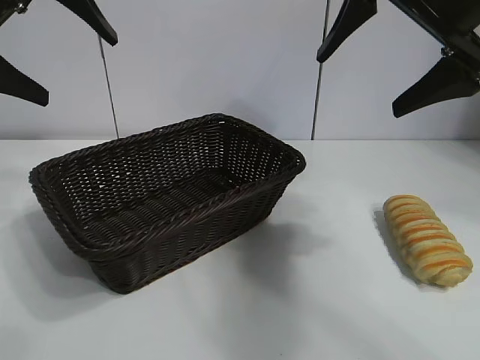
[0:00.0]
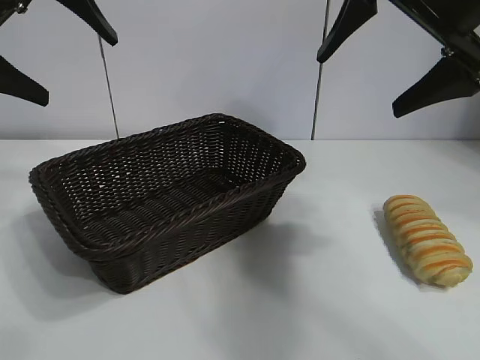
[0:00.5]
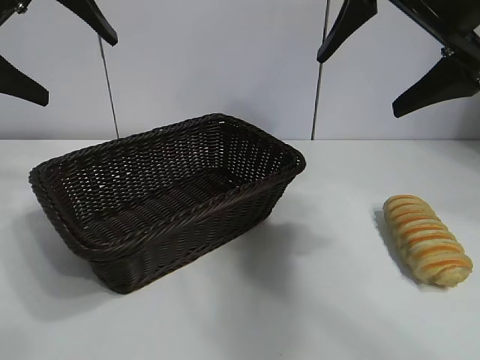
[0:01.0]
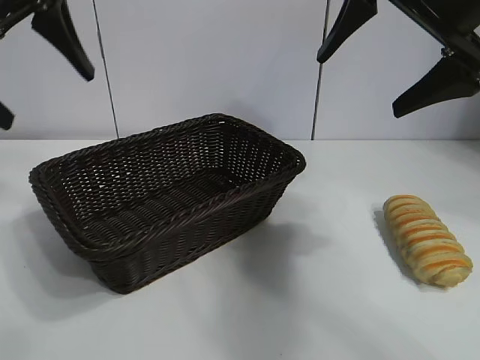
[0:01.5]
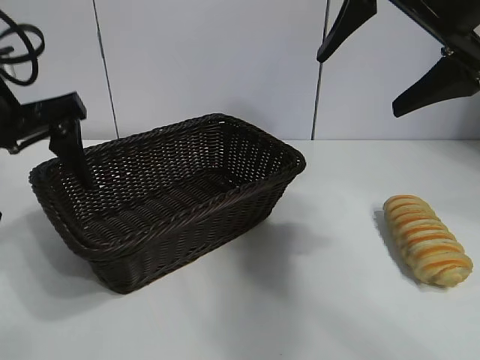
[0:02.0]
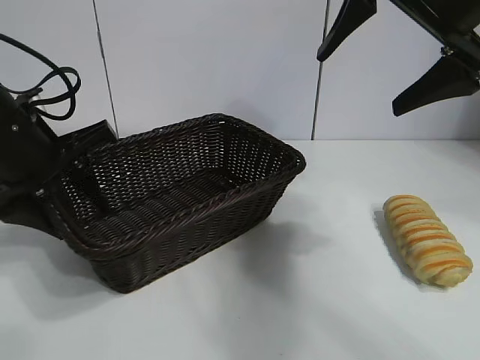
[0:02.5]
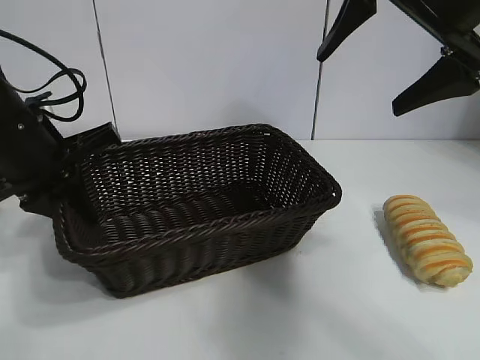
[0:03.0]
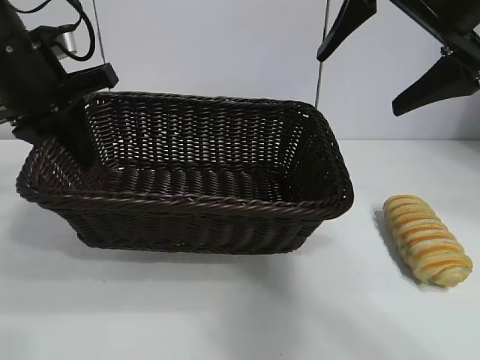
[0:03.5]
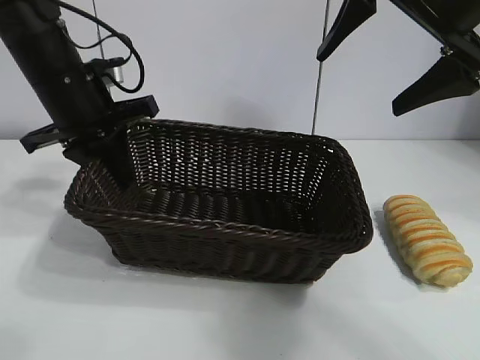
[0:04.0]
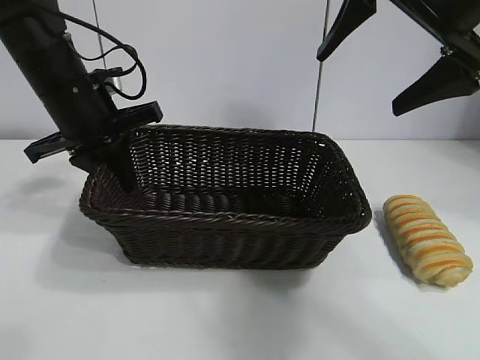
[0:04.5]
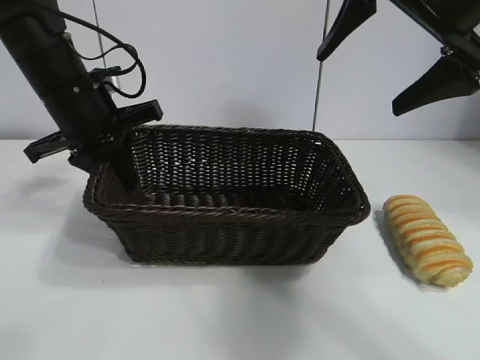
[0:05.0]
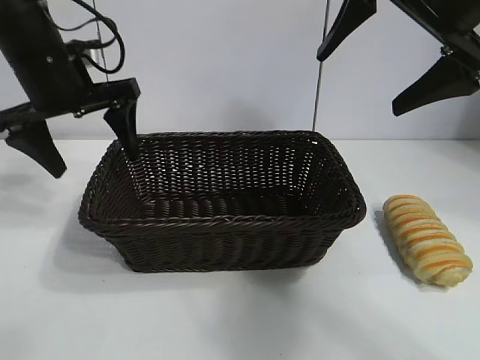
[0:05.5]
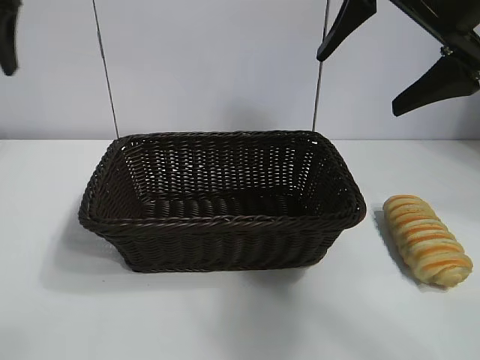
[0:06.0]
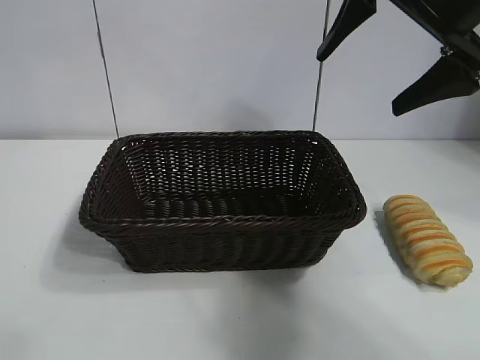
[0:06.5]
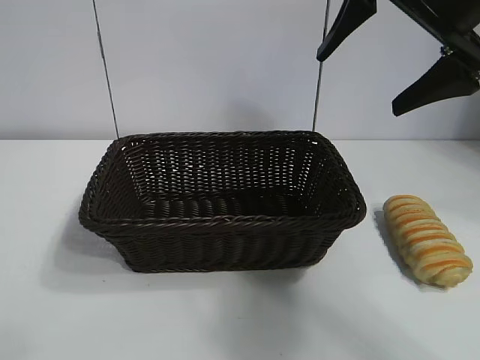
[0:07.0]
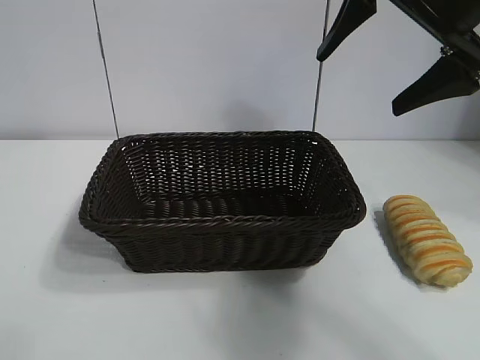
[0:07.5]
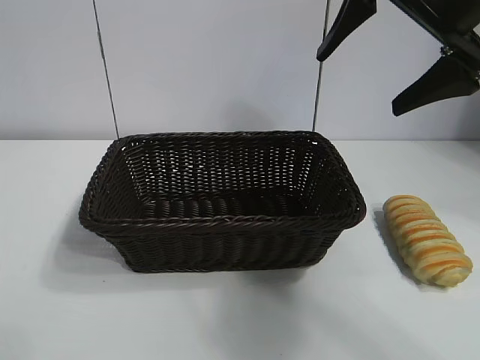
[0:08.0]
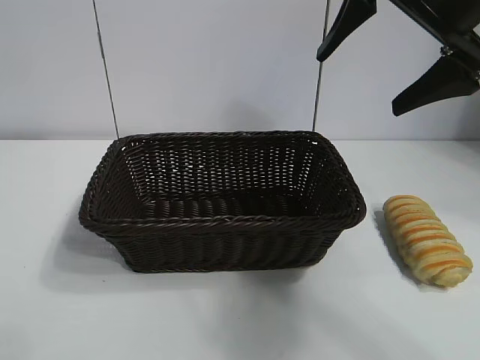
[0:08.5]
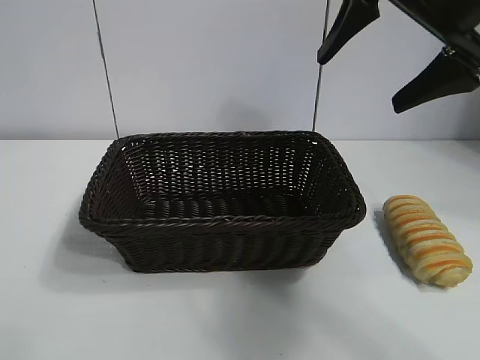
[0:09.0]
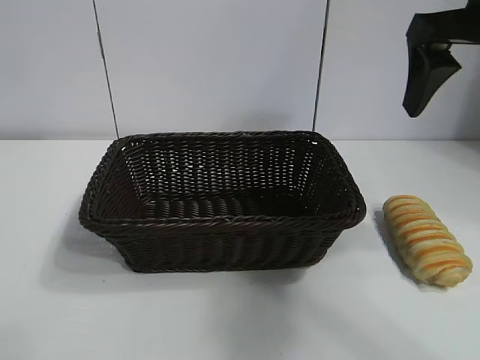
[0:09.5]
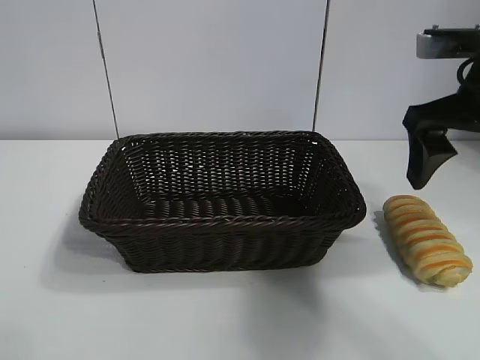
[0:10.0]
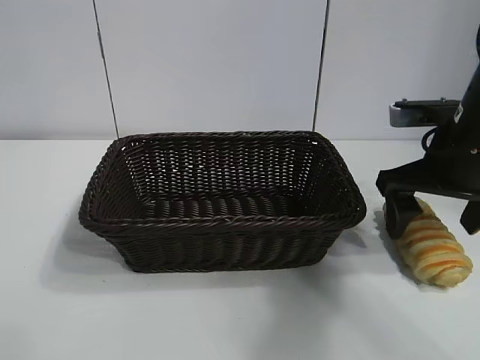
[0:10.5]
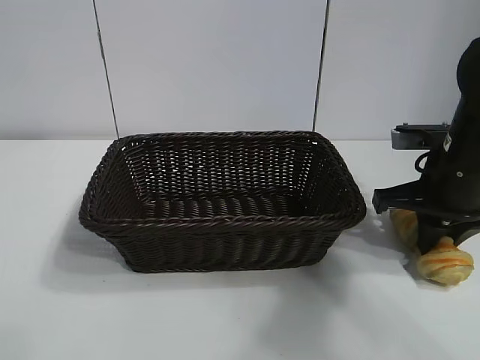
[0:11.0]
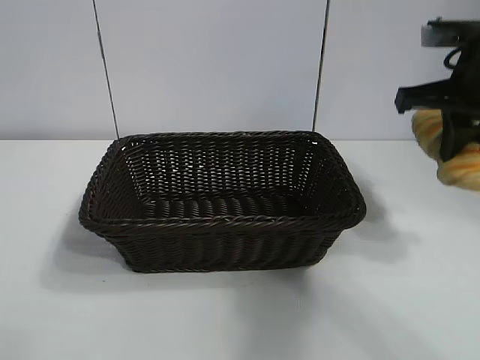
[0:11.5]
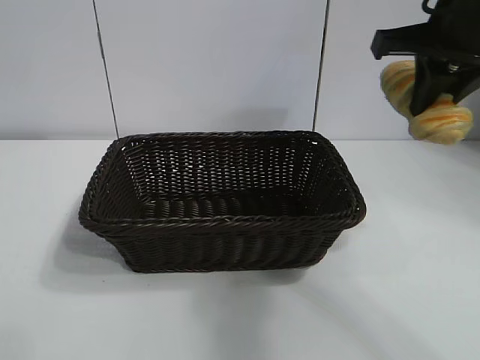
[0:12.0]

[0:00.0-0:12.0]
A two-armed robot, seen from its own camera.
Task of the whole recording: pick up the long bread and put it into the basket.
Step, 0:01.5 to 0:02.5: Grasp the basket with the left gripper.
Step, 0:03.0 to 0:05.0: Place the basket in the center of the table with the left gripper.
Step, 0:05.5 to 0:10.5: Grasp the long bread with right gripper.

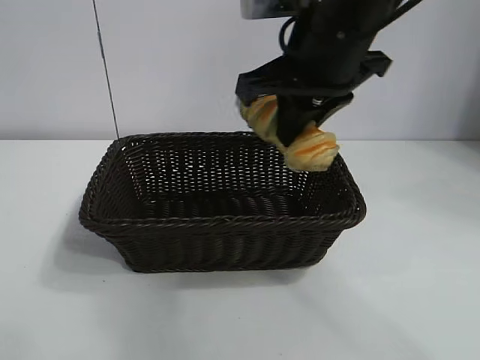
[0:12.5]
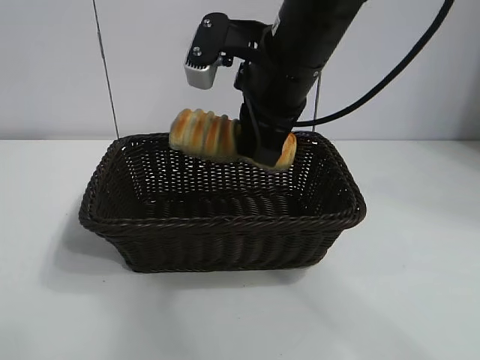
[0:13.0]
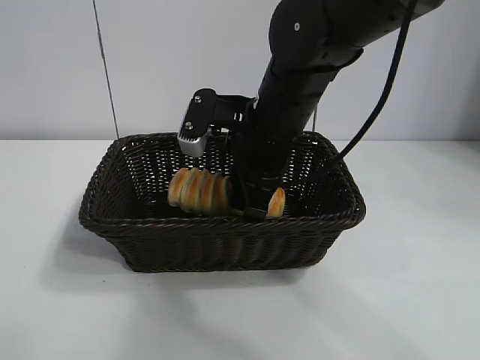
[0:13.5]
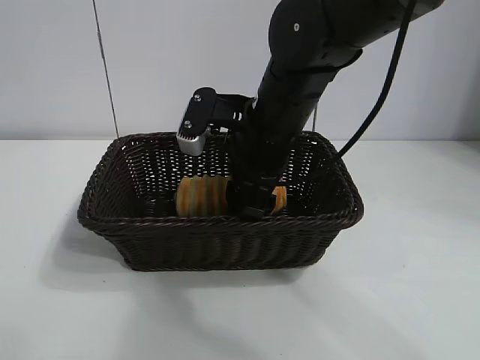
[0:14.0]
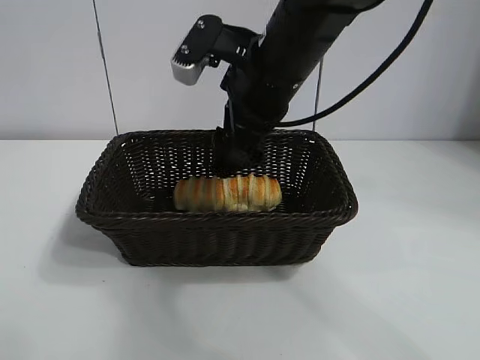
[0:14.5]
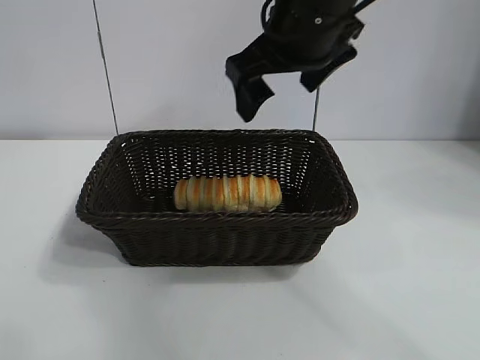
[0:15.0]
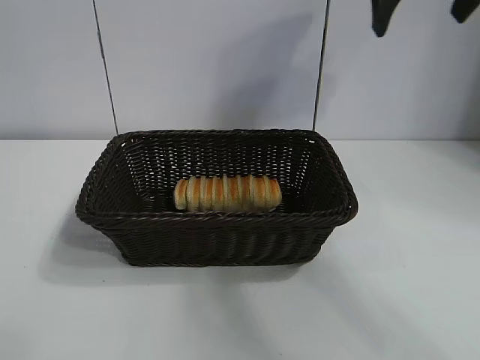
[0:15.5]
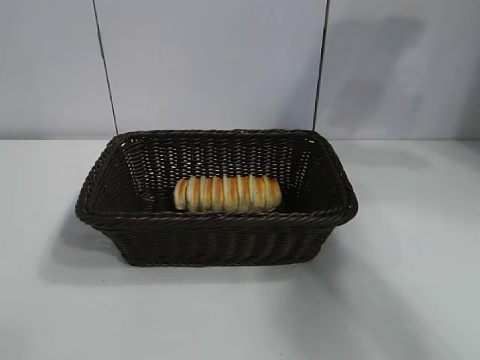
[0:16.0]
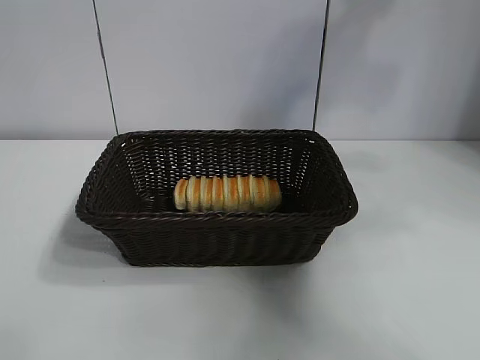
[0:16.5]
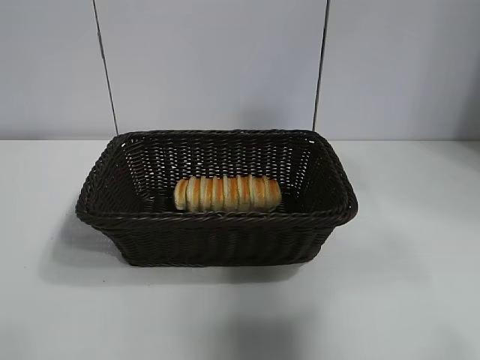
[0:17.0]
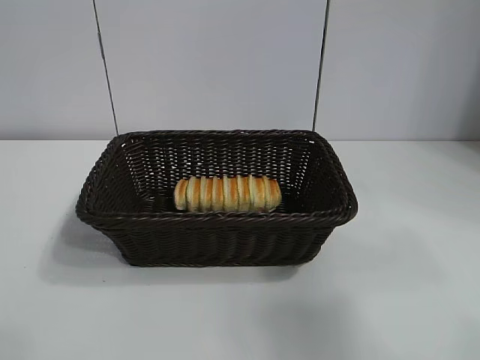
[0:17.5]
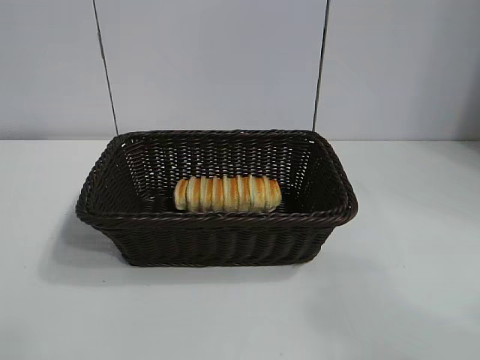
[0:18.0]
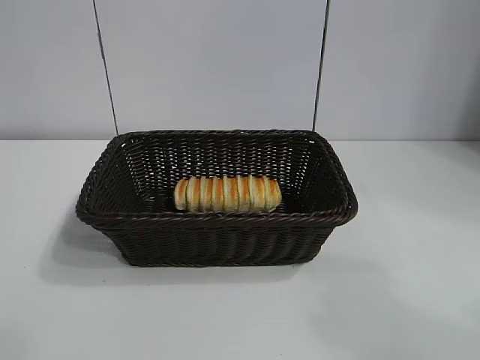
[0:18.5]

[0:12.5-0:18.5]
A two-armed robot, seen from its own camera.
Task of the whole recording: pick up the long bread and put it into the basket.
Step, 0:12.5 to 0:14.5: Place the long bread in the basket with right gripper.

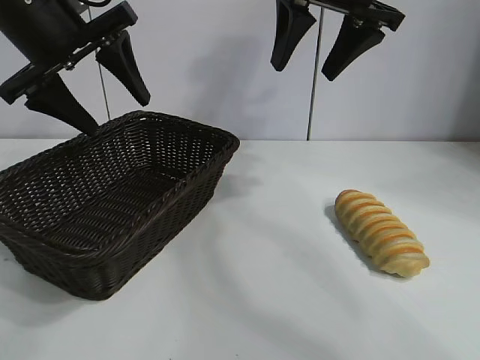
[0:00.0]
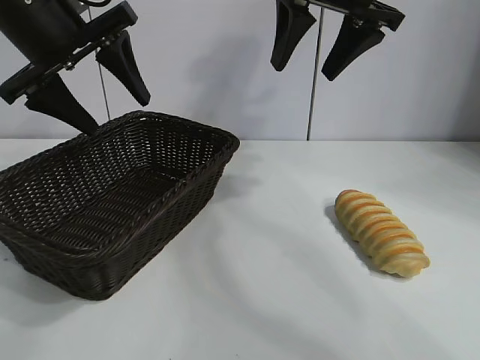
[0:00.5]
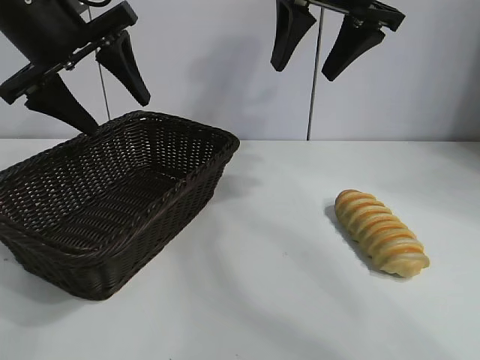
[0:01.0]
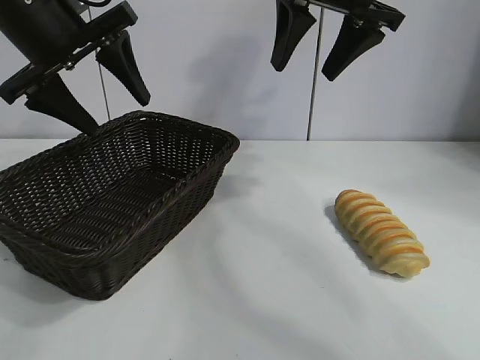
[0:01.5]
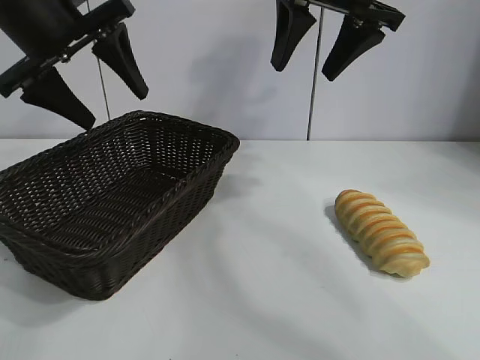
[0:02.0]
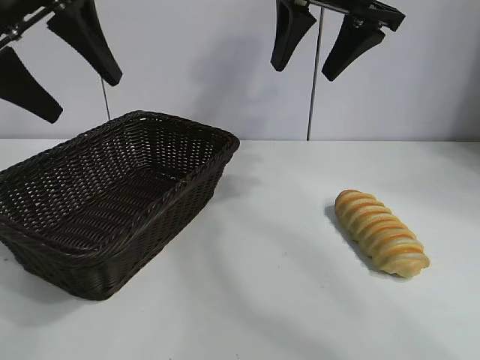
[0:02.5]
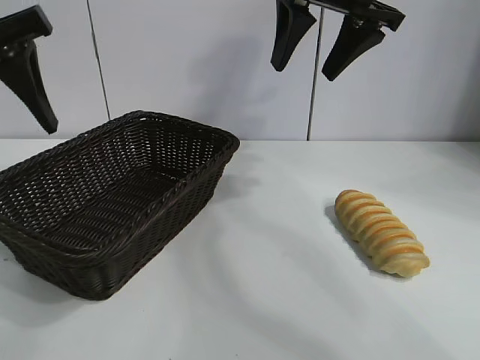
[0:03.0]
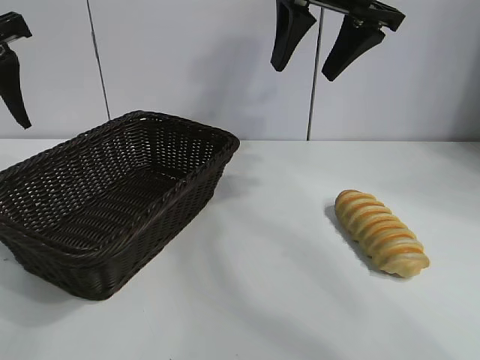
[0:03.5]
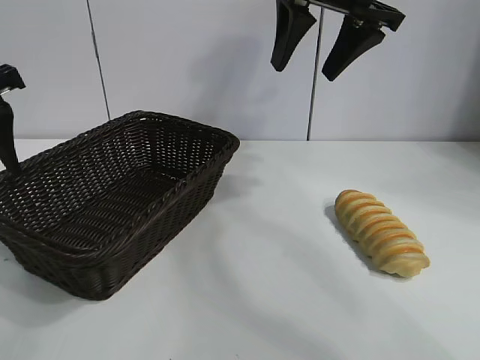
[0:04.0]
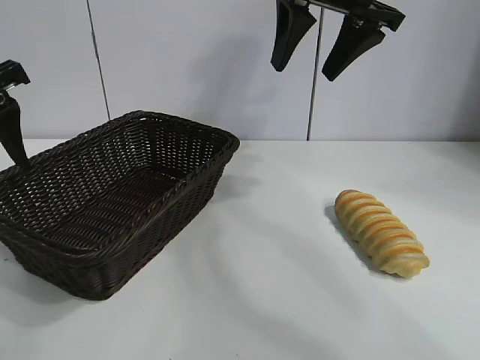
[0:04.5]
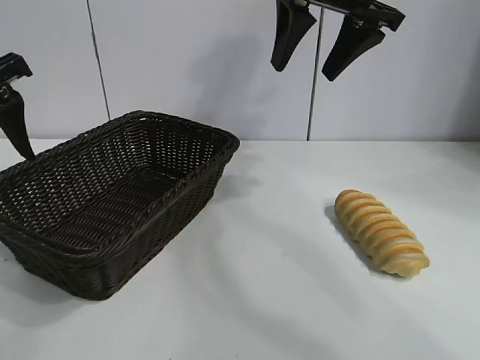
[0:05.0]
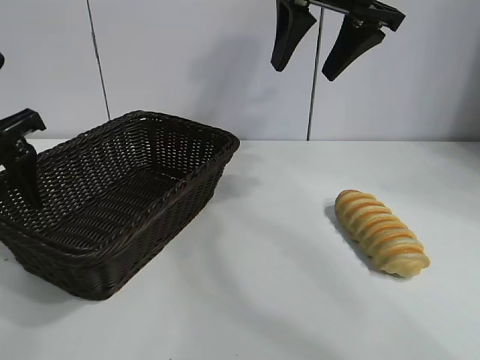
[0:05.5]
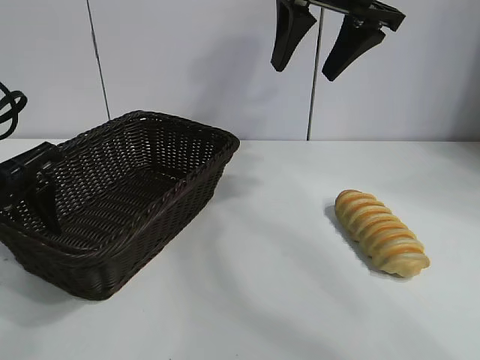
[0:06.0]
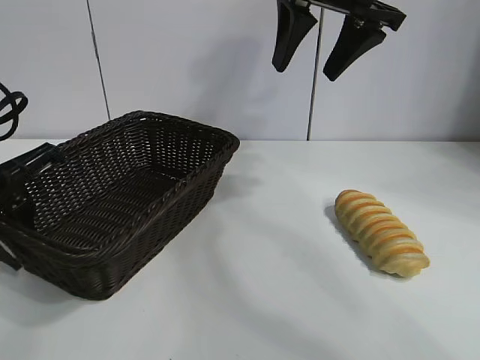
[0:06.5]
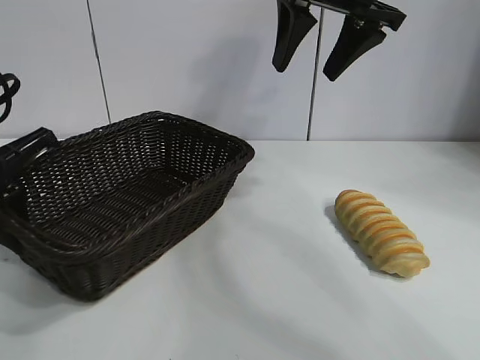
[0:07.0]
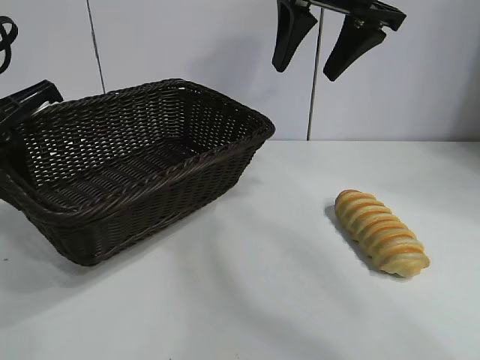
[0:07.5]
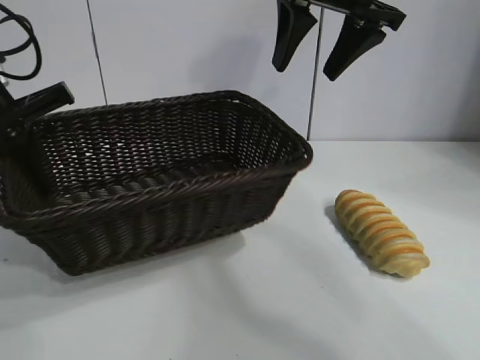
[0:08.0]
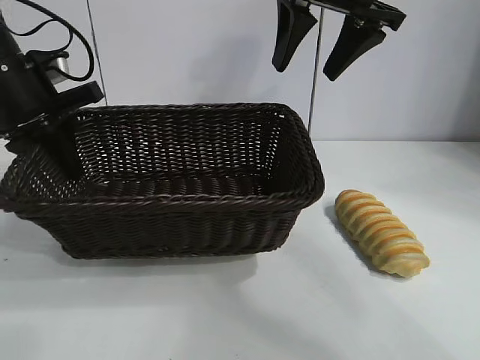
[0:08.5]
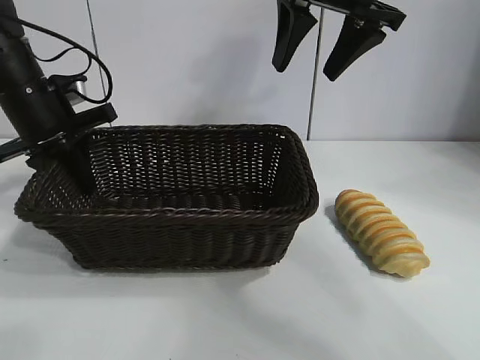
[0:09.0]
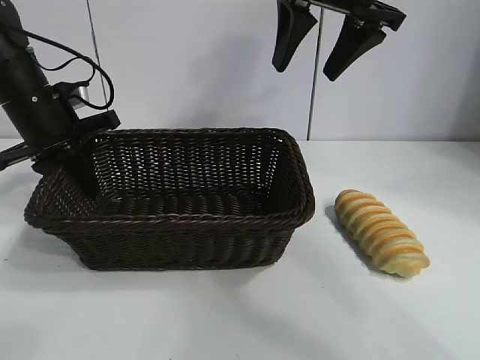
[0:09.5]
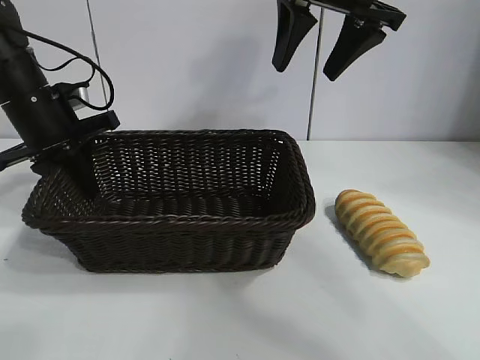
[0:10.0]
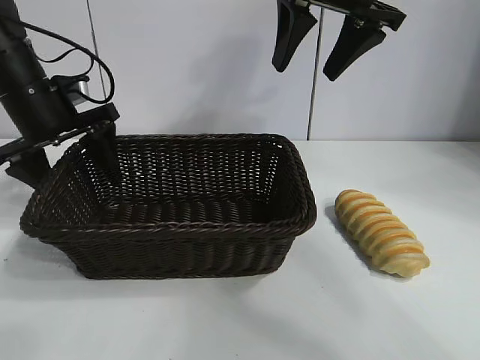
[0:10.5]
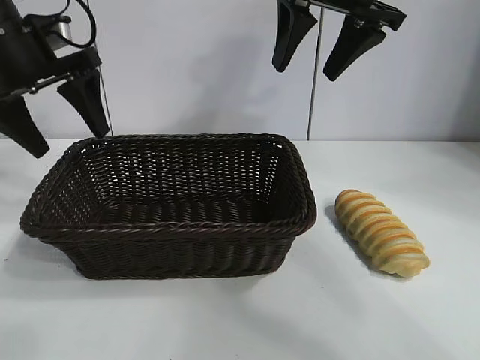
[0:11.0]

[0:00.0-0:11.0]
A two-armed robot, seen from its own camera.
Task of the whole recording: pick up the long bread and put it into the basket.
Step, 0:02.0 to 0:06.5: Grasp the basket with the left gripper.
Step, 0:07.0 to 0:10.5: Place the basket in the center of the table with the left gripper.
